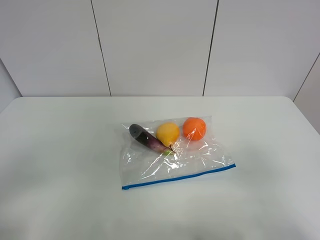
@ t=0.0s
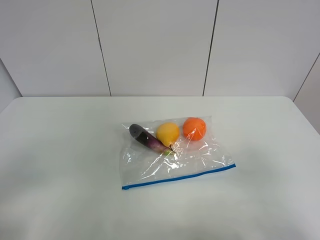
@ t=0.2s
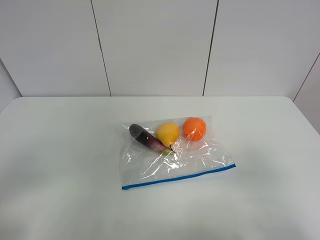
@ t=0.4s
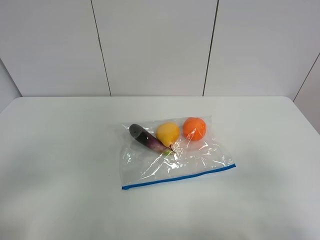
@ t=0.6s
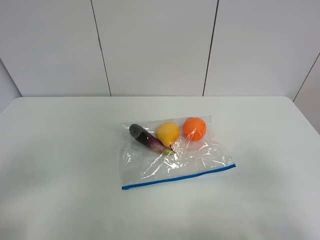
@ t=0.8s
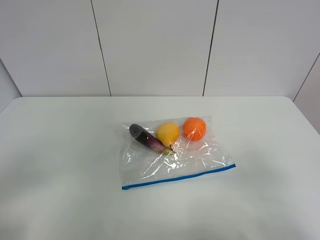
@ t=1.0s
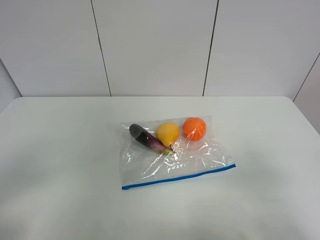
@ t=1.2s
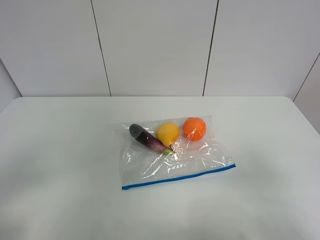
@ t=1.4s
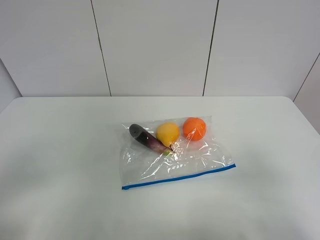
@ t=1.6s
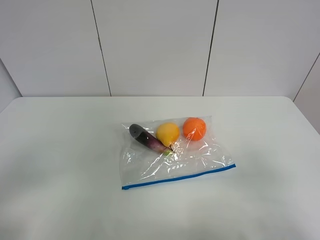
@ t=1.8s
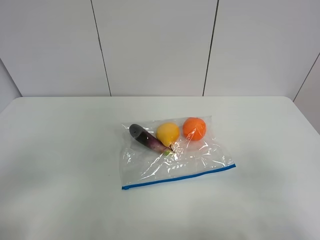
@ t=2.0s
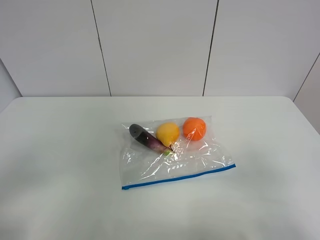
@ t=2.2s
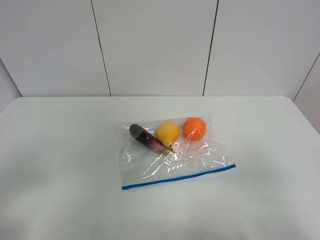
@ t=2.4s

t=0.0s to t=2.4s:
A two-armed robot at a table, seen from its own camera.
t=1.2s to t=2.4s: Both grippers stay put.
